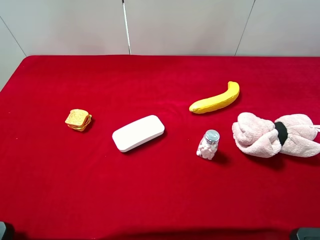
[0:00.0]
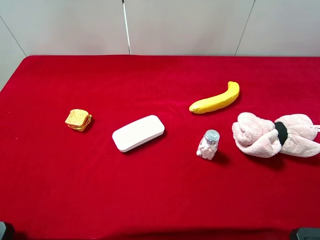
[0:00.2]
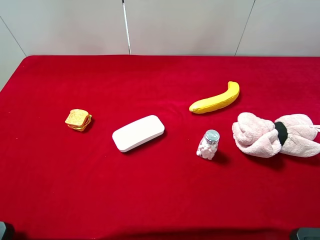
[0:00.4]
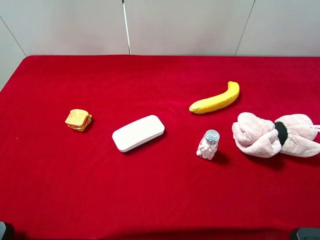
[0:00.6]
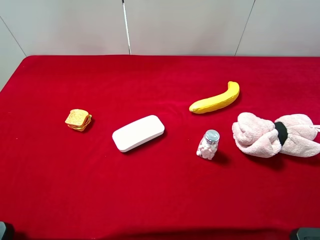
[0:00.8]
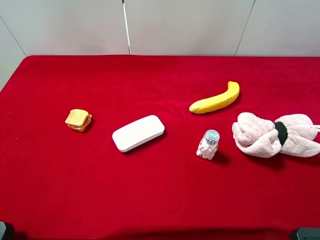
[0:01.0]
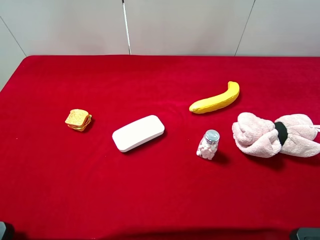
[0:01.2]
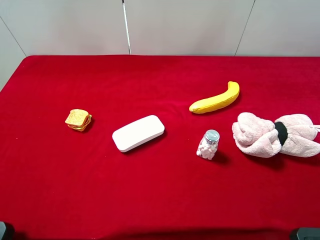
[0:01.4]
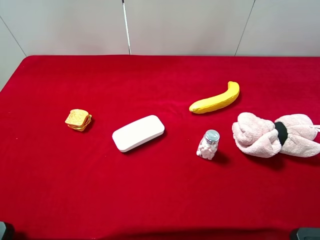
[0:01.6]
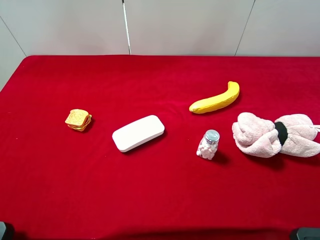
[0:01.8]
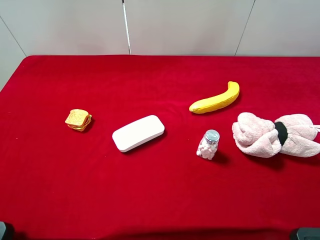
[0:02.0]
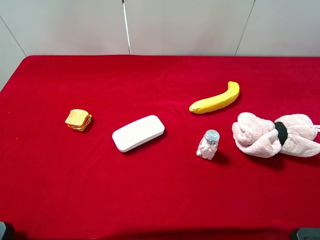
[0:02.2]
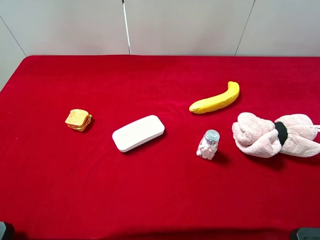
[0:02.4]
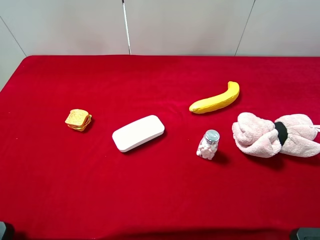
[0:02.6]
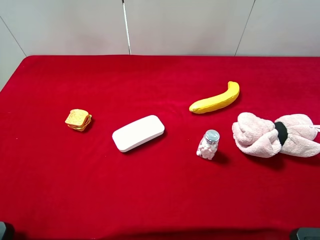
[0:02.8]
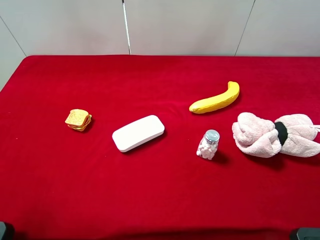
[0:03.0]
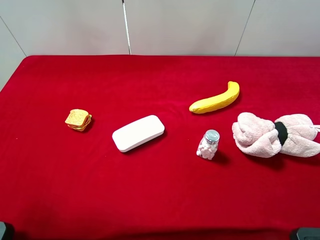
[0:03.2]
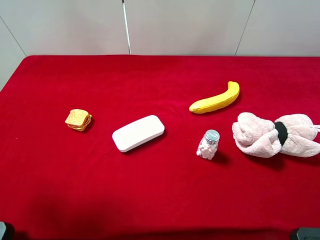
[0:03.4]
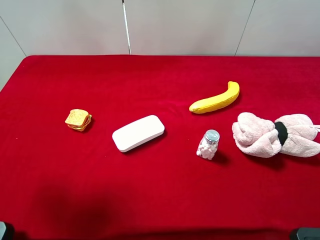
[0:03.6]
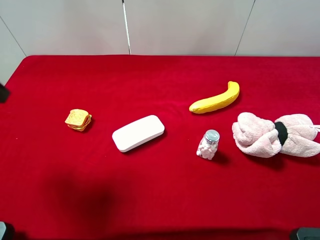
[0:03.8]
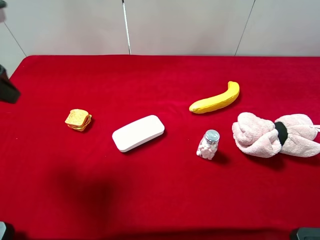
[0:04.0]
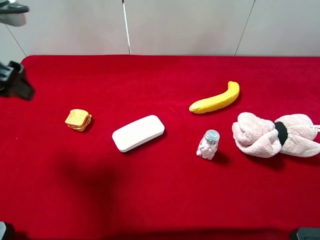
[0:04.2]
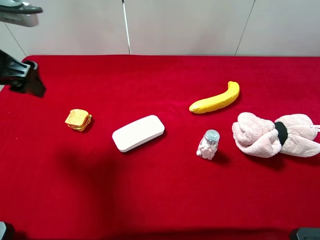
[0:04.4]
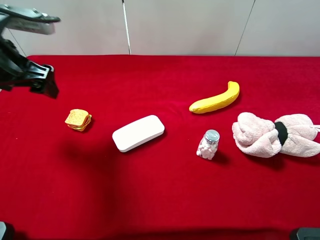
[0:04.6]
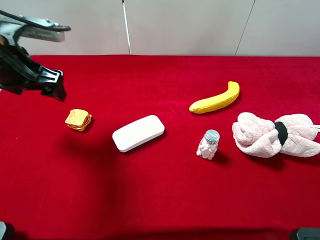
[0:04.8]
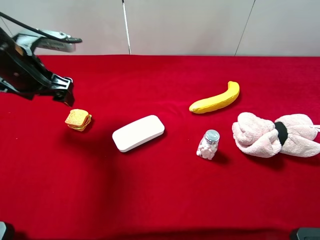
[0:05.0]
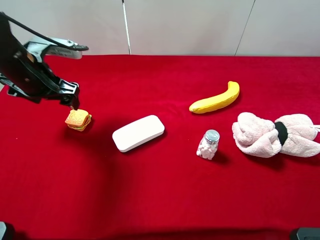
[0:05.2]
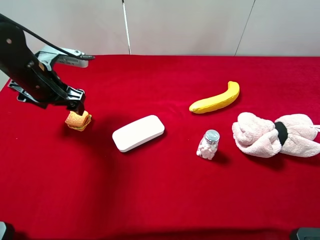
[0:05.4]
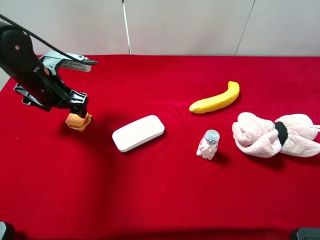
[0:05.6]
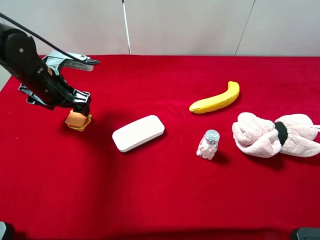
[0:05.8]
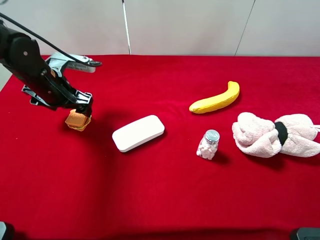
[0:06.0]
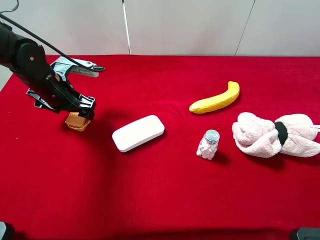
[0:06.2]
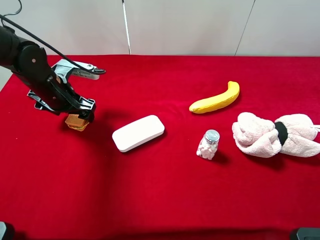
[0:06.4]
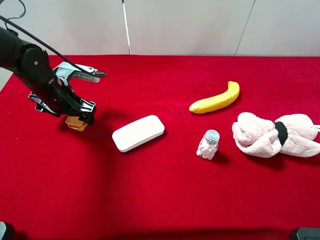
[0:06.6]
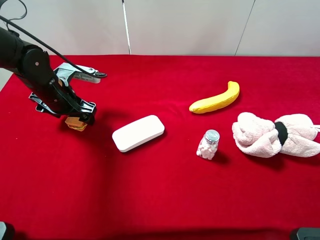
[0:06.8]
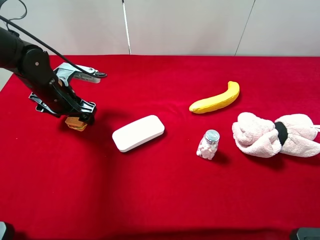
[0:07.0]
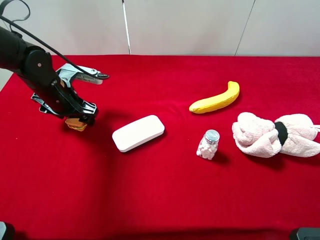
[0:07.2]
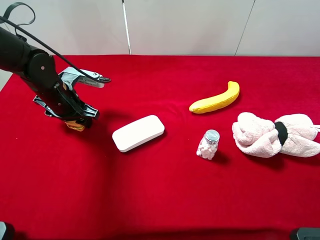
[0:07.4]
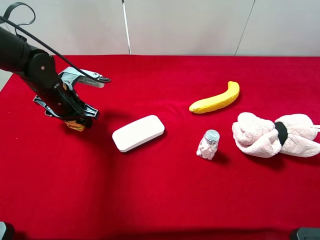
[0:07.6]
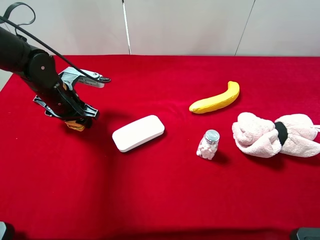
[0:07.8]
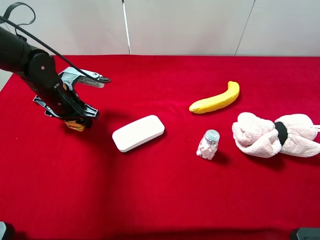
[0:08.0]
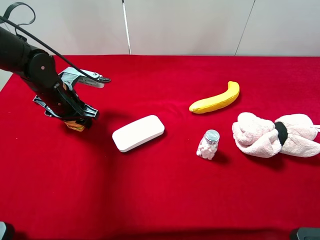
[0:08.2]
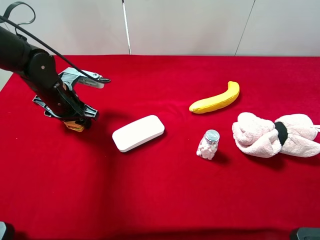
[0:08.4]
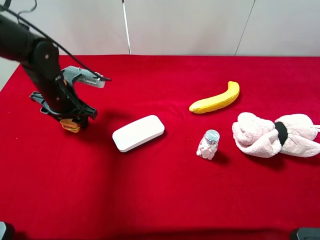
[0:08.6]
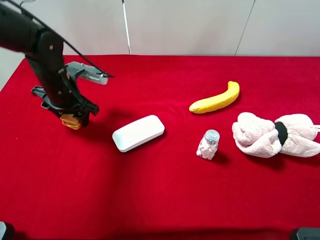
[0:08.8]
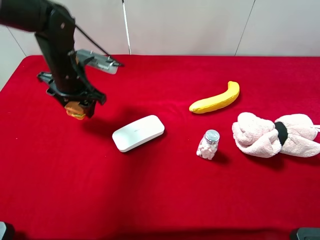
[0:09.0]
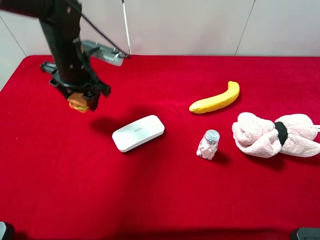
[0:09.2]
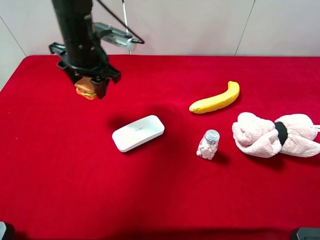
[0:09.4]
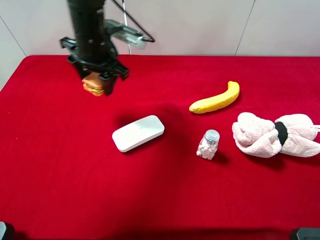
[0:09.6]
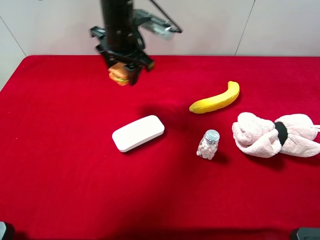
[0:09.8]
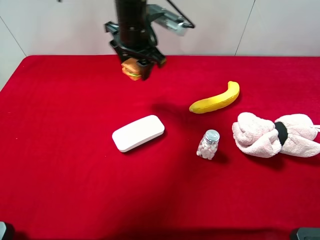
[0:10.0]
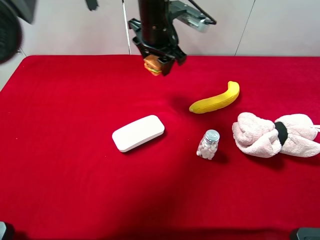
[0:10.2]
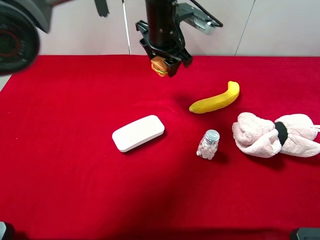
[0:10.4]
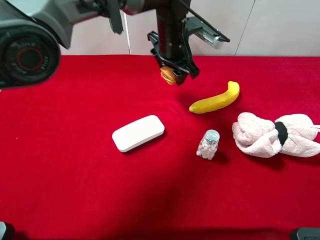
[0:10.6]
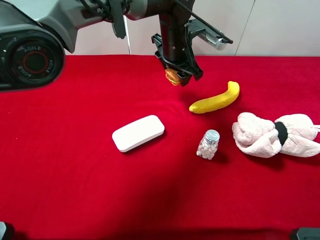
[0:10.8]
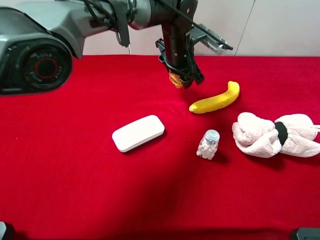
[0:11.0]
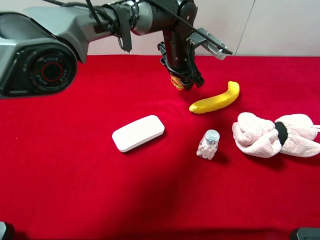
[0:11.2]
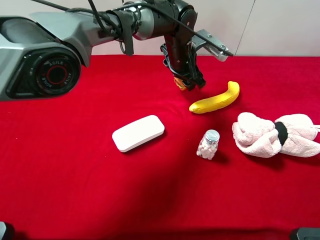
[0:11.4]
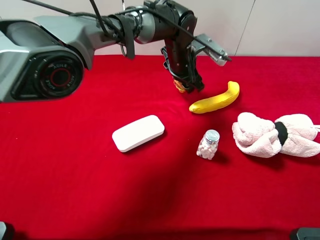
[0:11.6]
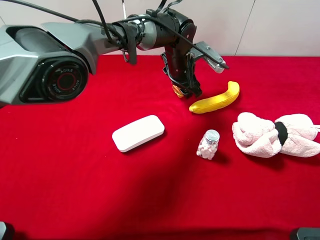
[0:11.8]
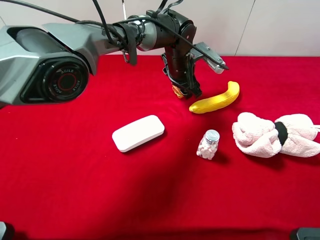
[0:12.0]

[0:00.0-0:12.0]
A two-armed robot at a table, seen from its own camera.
Task of the whole recording: the gripper move the object.
Step, 0:00.0 to 0:07.8: Grasp the sandwich with the left gripper.
0:03.0 to 0:04.4: The left gripper heads forward, covering about 15 cm.
0:04.4 to 0:06.0: The left gripper is displaced downward and forward by about 15 cm.
0:06.0 to 0:07.6: The left gripper closes its fingers.
0:07.6 to 0:09.0: The grippers make only small movements.
0:09.0 to 0:10.4: The left gripper moves to the right and upward, about 20 cm.
0:10.4 to 0:12.0: The left gripper goes some 10 cm downward and to the right.

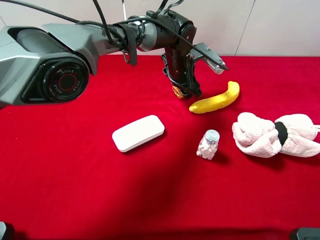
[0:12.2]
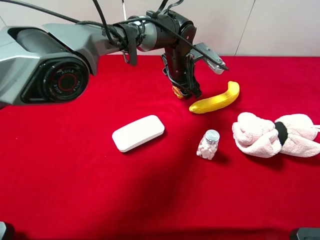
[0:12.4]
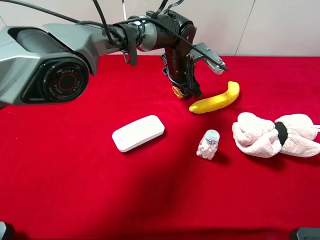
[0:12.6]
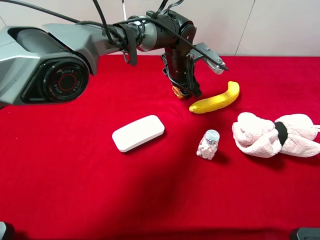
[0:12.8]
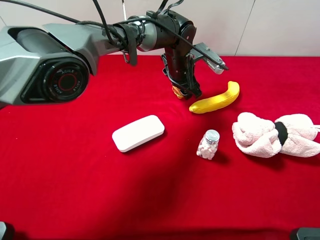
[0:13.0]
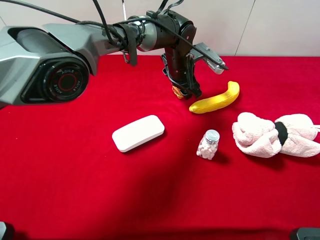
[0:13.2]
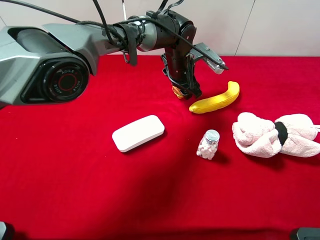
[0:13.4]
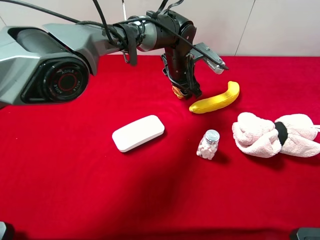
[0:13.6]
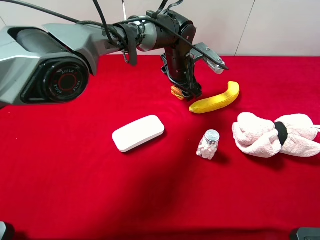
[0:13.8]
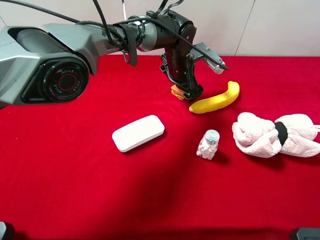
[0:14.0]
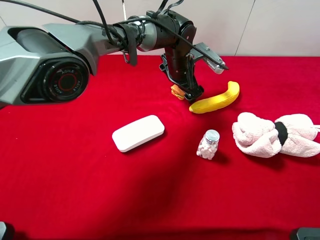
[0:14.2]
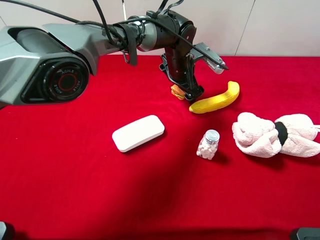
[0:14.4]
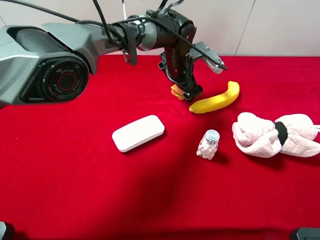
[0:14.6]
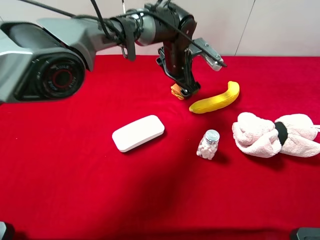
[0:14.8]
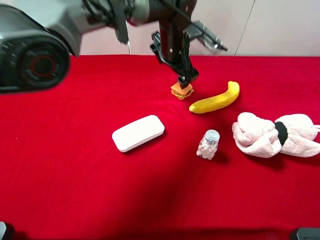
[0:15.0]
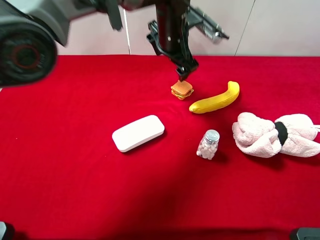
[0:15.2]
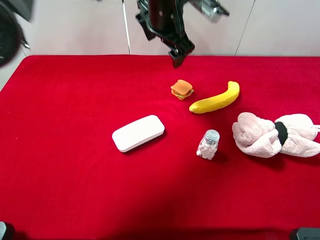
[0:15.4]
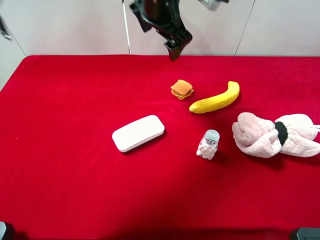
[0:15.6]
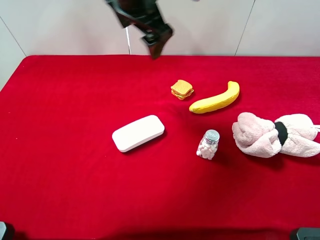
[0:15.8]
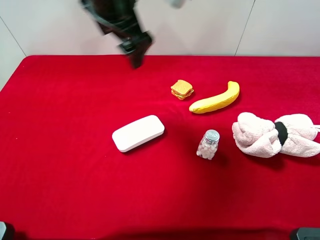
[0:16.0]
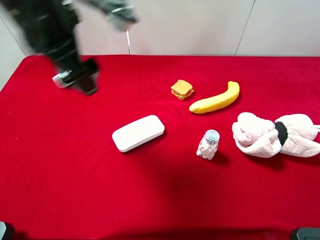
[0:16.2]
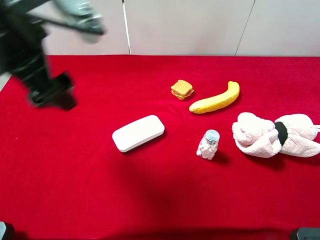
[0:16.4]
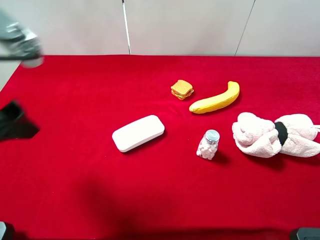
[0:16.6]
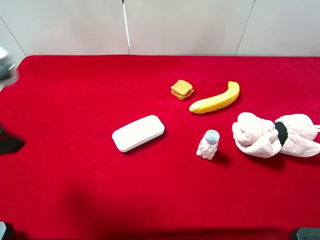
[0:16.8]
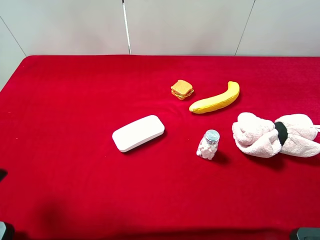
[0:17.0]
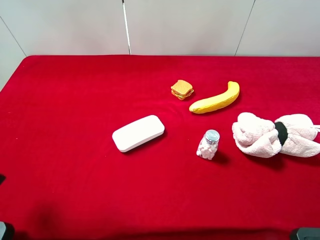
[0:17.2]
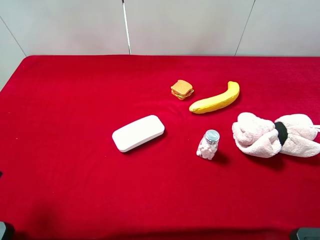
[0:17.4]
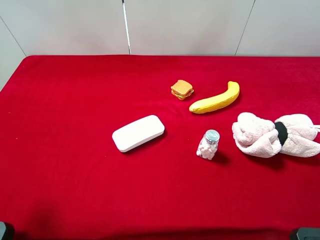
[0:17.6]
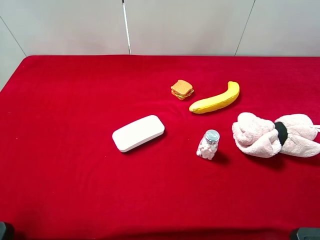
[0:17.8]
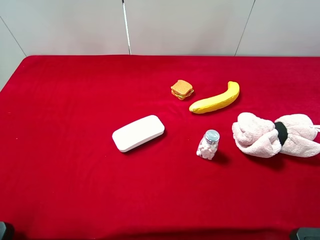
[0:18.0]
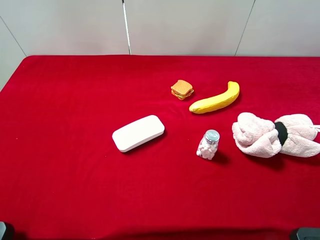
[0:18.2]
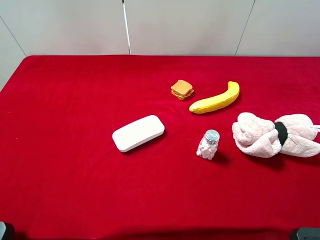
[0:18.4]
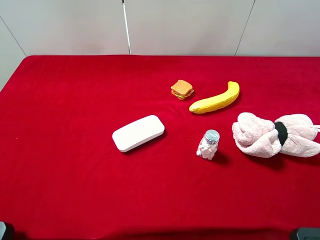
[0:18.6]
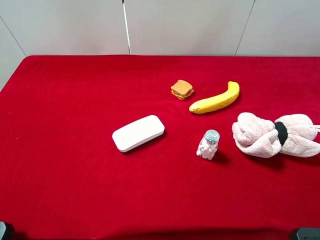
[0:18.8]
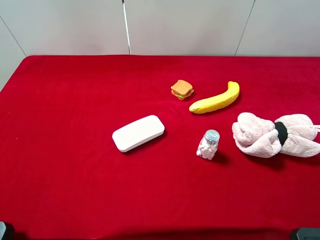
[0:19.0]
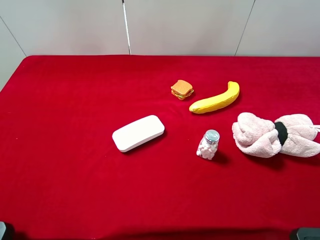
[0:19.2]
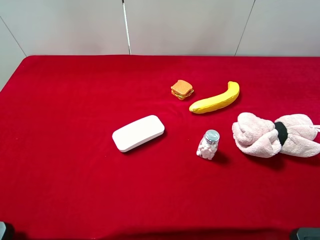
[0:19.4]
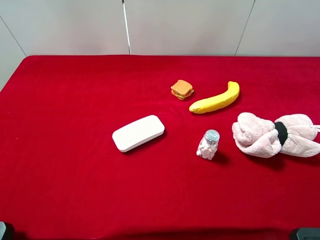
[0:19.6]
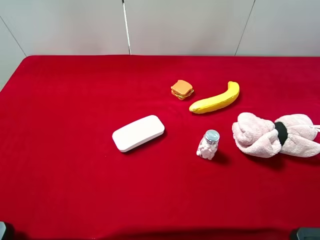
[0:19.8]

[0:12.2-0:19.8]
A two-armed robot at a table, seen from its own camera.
Task of the whole recording: the gripper move the object.
Step, 0:12.2 to 0:15.0: Place the sandwich on the table with the left gripper.
0:12.2 to 0:13.8: Both grippers stay about where they are.
0:13.8 to 0:15.2: The left gripper is displaced upward by roughly 10 cm, and opens its fingers.
0:15.2 to 0:16.8: The left gripper travels backward, to the left and upward by approximately 40 cm.
0:16.8 to 0:18.2: The left gripper is displaced backward and to the left by about 15 cm.

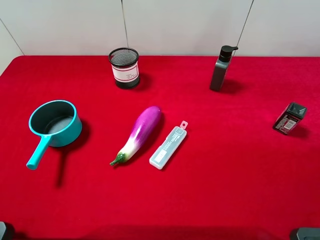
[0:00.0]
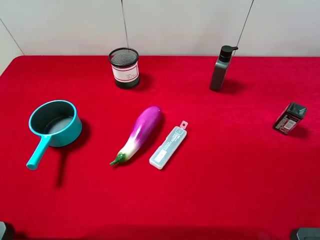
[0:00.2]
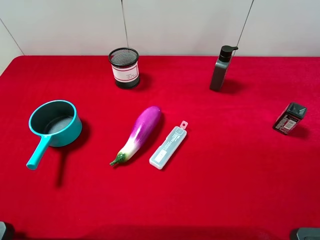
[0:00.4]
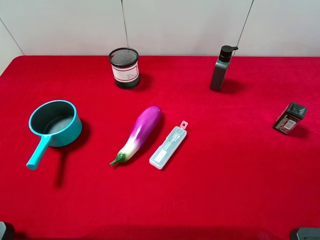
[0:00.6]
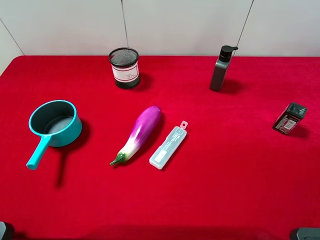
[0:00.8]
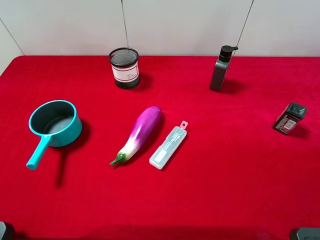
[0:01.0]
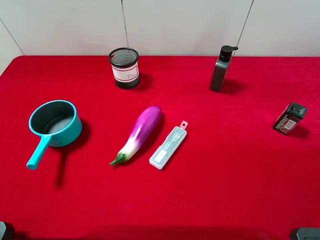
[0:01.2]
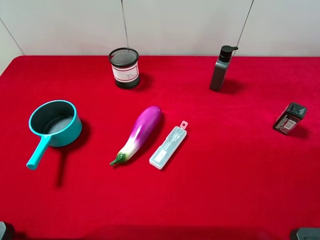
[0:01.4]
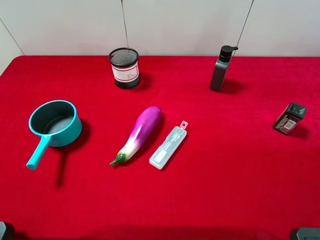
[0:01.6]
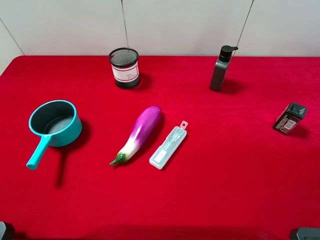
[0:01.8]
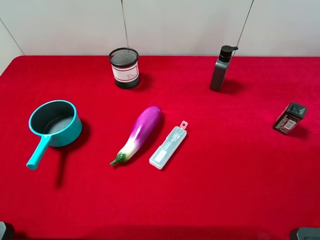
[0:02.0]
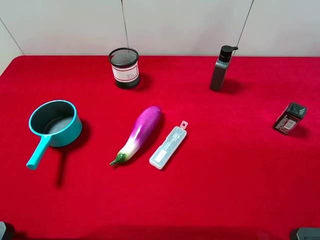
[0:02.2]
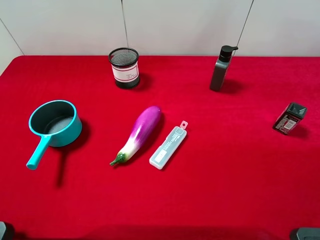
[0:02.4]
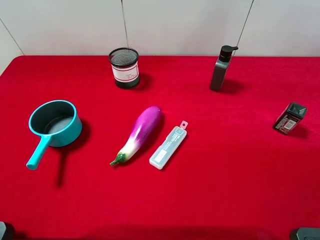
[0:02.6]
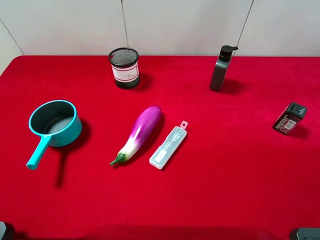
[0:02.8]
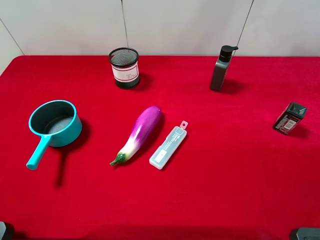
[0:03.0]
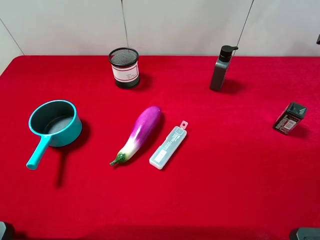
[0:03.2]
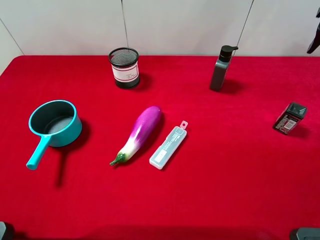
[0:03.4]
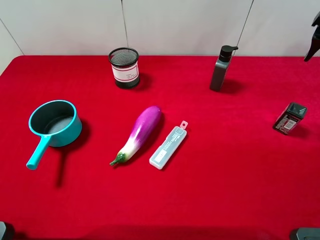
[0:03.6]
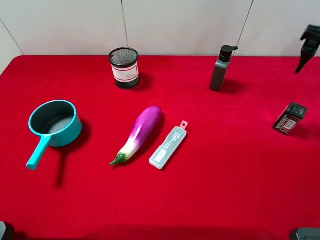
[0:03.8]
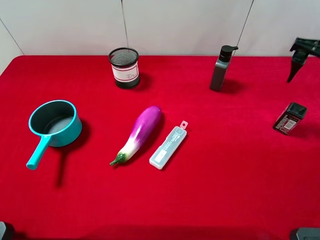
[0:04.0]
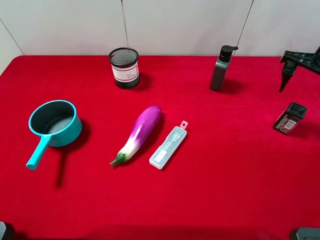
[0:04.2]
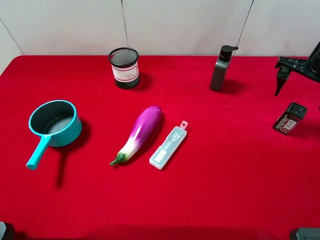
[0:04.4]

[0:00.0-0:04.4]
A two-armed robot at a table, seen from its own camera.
Task of the whole recording: the gripper move the object.
0:00.0 to 0:01.4: Both grippers stay about where they are.
0:03.0 to 0:04.4: The right gripper is displaced downward and forward by about 20 cm.
